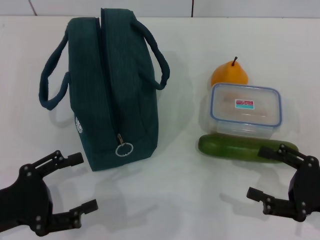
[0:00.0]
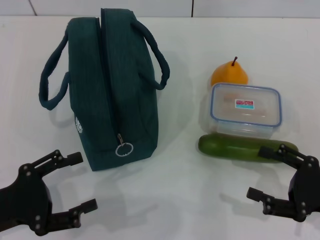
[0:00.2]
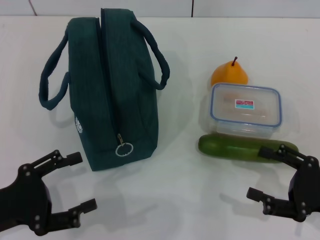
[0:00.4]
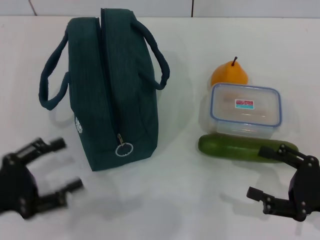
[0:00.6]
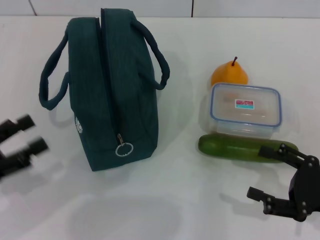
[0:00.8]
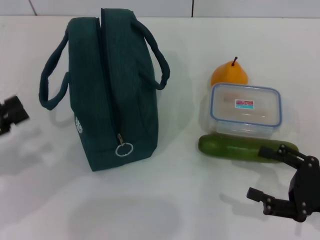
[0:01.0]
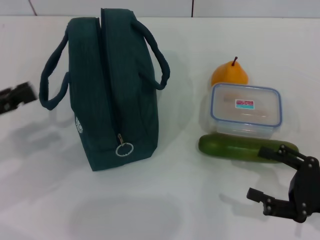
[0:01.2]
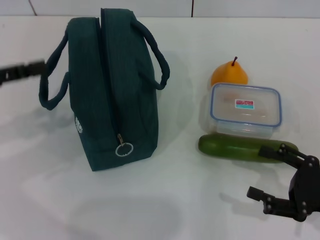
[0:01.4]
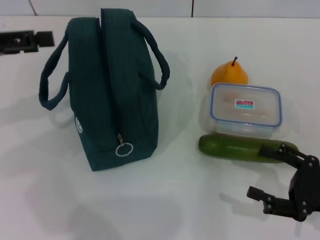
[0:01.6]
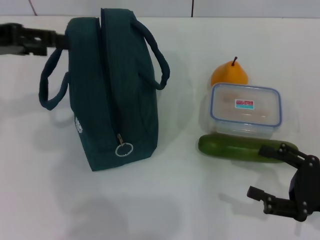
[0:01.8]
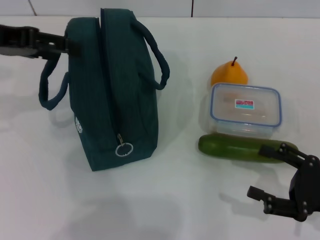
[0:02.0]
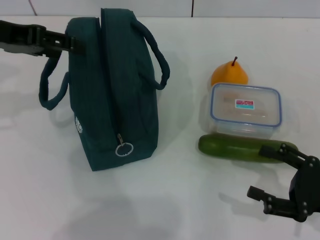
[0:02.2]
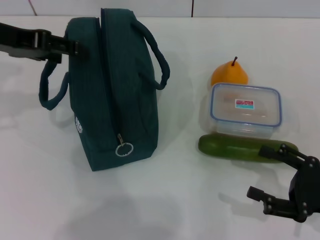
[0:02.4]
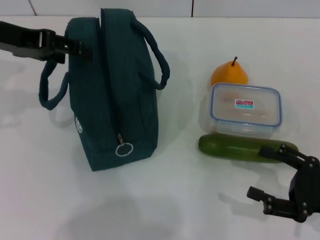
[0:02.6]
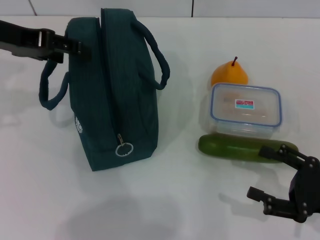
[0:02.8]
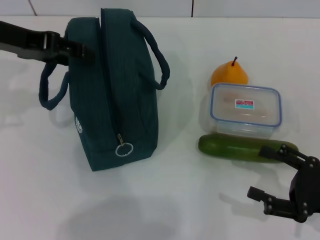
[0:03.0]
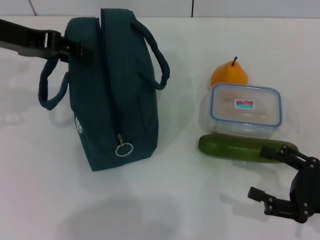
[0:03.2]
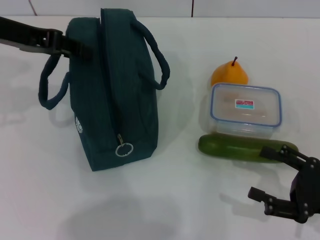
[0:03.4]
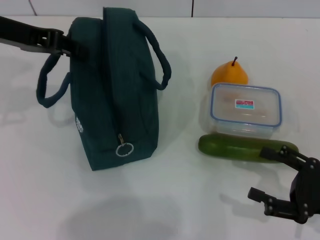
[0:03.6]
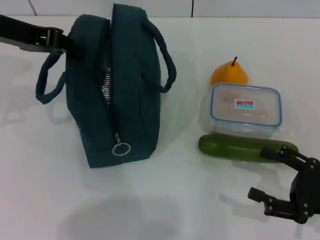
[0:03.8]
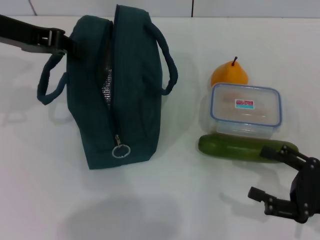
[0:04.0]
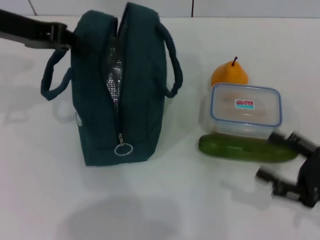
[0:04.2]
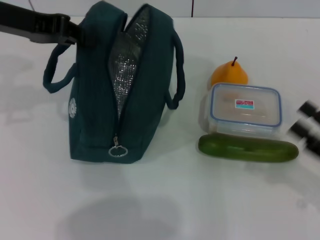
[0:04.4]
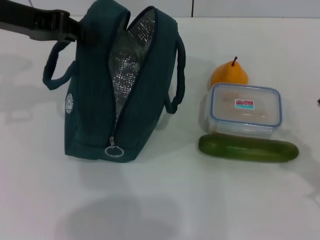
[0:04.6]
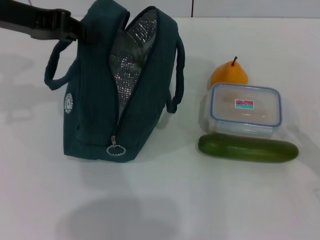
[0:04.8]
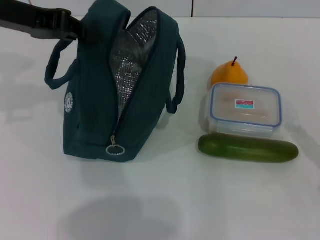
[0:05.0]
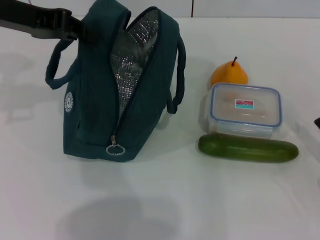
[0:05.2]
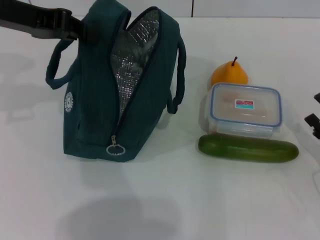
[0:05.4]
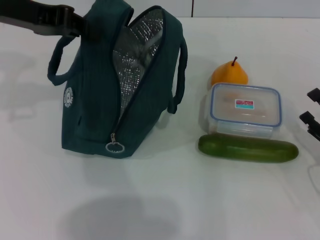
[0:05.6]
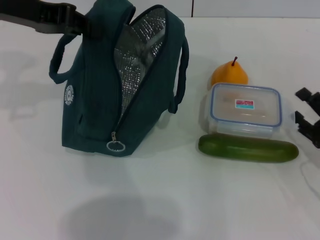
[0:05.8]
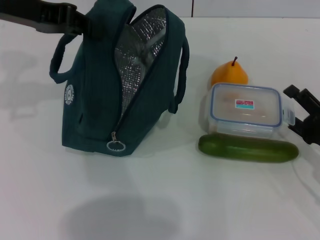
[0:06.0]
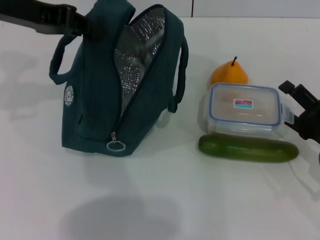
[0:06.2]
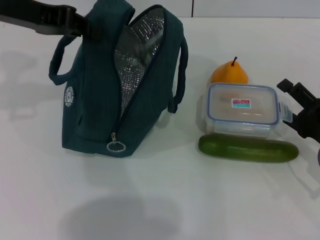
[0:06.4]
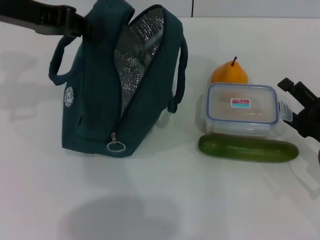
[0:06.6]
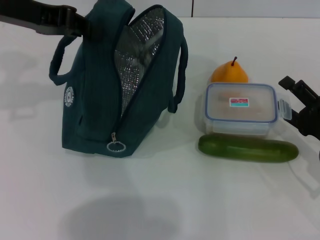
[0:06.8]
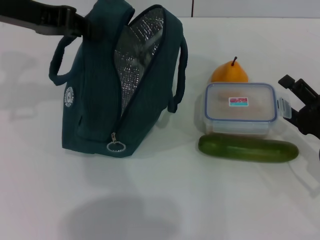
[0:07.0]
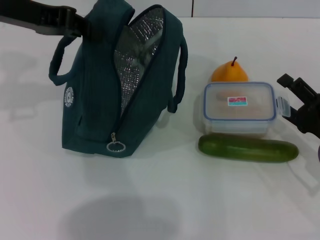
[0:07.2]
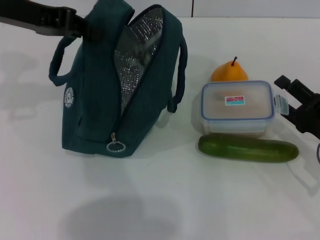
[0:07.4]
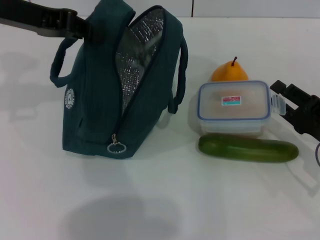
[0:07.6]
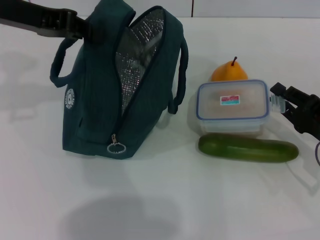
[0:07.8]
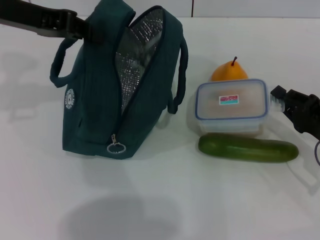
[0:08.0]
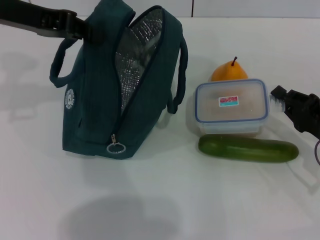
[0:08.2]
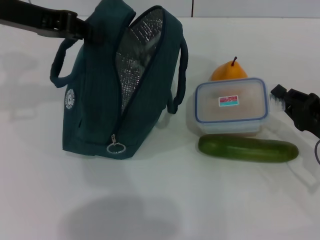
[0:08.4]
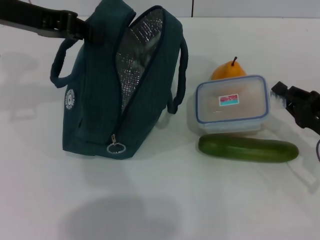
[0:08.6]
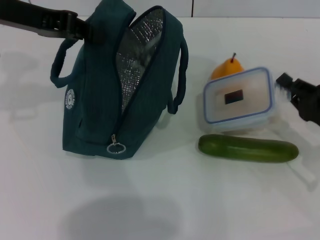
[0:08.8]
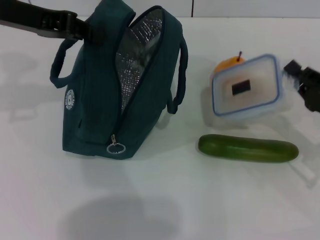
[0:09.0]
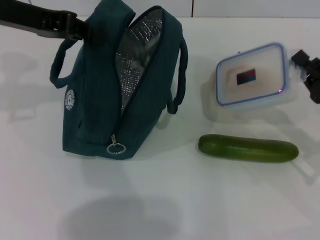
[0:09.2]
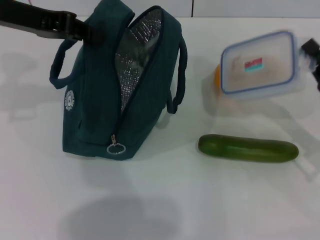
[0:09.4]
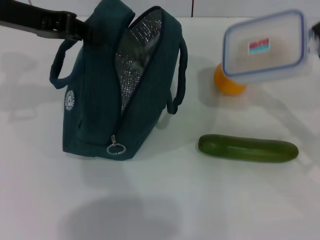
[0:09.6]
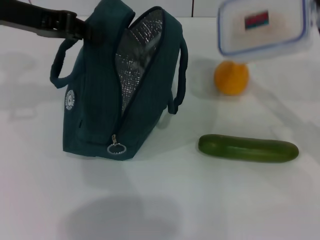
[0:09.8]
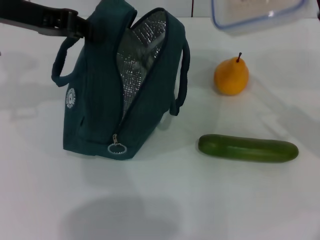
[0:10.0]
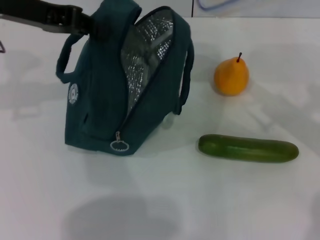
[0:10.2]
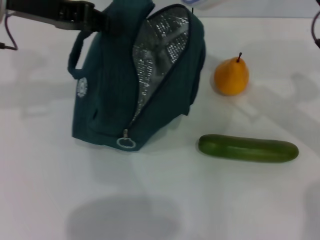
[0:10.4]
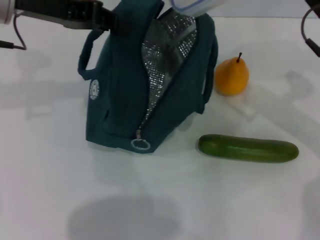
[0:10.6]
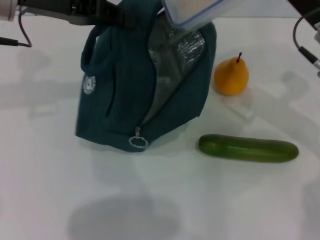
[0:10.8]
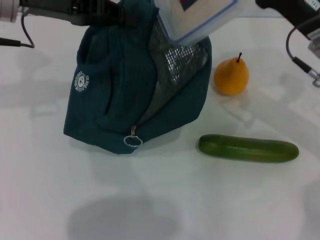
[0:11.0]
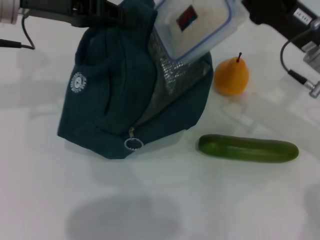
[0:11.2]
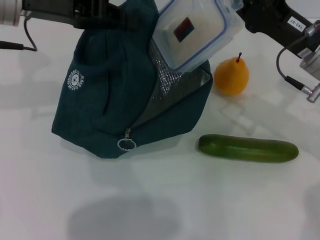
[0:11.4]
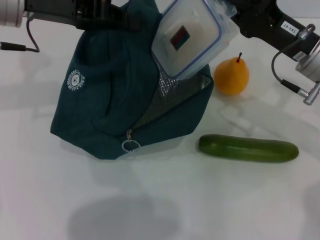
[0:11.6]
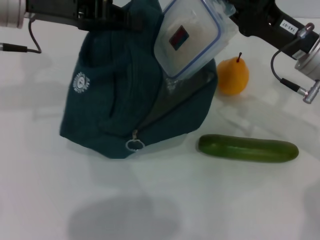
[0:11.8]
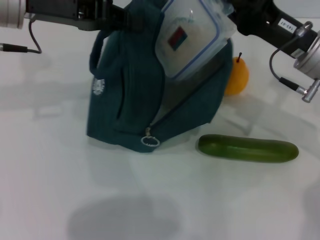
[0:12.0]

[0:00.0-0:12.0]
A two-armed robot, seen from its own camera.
Step, 0:00.0 to 0:05.0: Hold the lunch bag with your left hand.
Step, 0:05.2 to 0:08.4: Pick up the lunch box with your right hand.
0:00.0 to 0:01.6: The left gripper travels upward and forward by some 20 cm.
0:01.6 to 0:03.0: The left gripper travels forward and to the right by roughly 10 cm.
0:03.0 to 0:04.4: The left gripper closes.
0:04.4 to 0:06.0: The right gripper is displaced forward by some 5 cm.
0:06.0 to 0:07.6: There are only small adjustments of the grippers.
0:07.6 to 0:09.0: The right gripper closes up.
0:09.0 to 0:10.4: The right gripper shifts some 15 cm upward, forward and to the left.

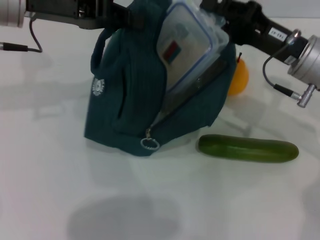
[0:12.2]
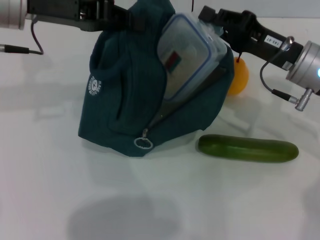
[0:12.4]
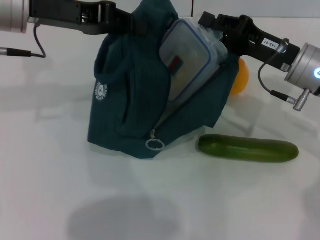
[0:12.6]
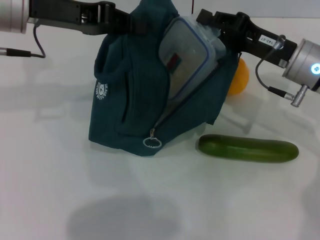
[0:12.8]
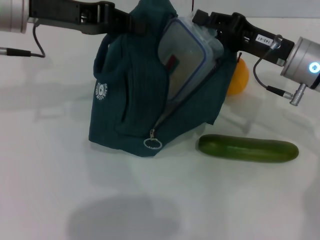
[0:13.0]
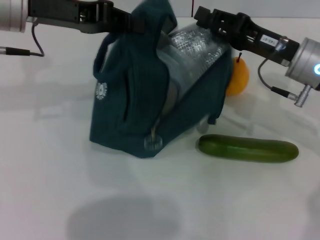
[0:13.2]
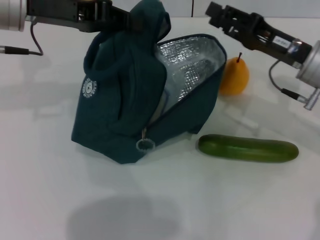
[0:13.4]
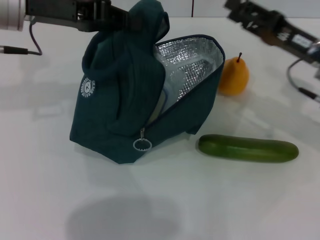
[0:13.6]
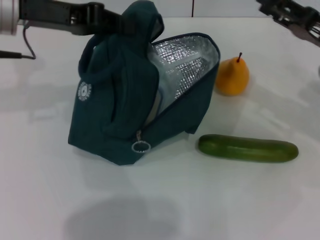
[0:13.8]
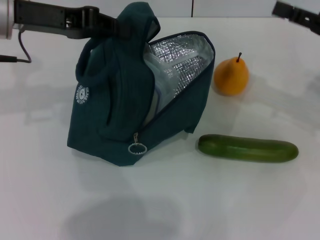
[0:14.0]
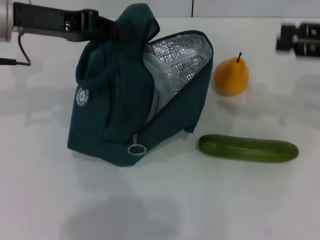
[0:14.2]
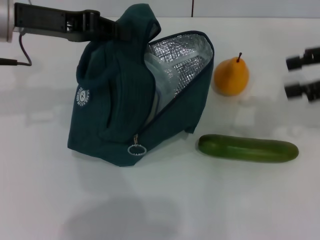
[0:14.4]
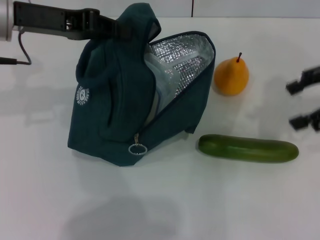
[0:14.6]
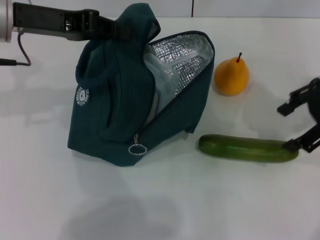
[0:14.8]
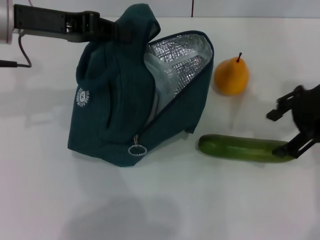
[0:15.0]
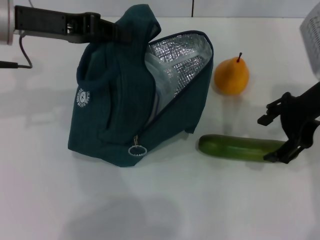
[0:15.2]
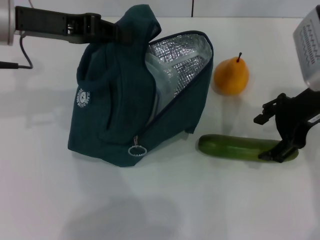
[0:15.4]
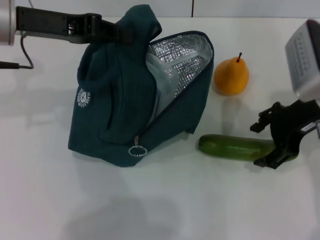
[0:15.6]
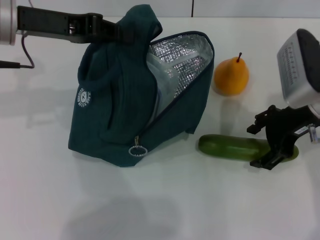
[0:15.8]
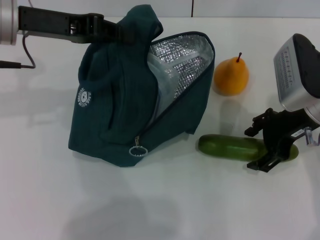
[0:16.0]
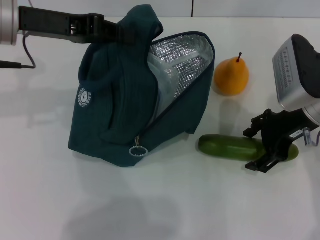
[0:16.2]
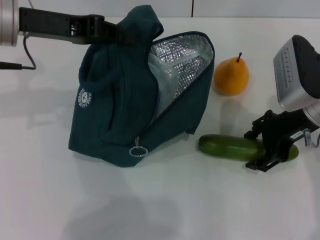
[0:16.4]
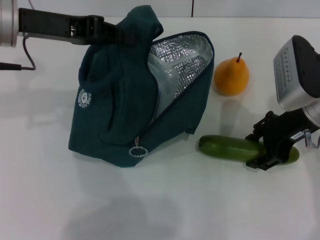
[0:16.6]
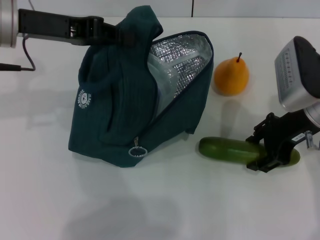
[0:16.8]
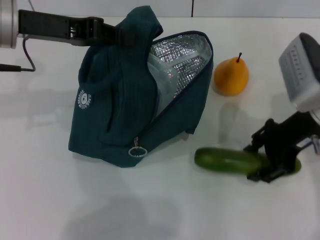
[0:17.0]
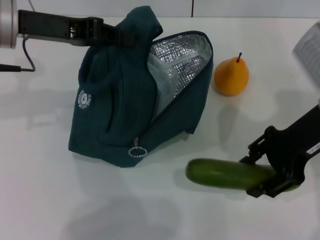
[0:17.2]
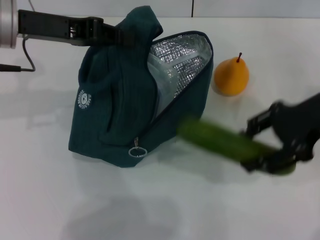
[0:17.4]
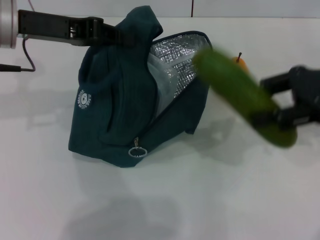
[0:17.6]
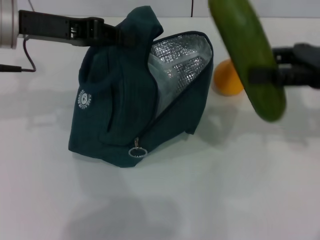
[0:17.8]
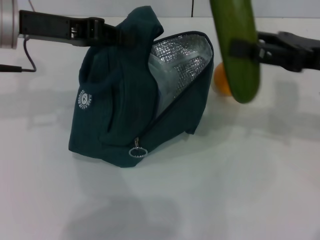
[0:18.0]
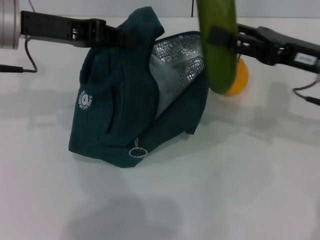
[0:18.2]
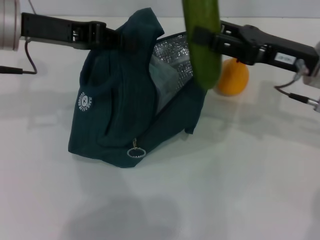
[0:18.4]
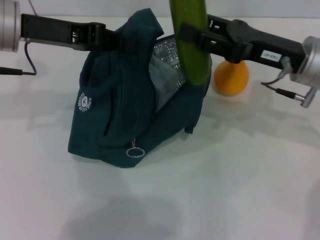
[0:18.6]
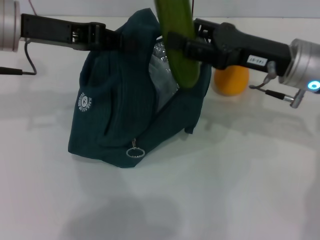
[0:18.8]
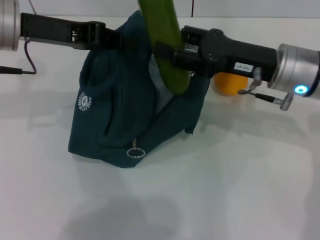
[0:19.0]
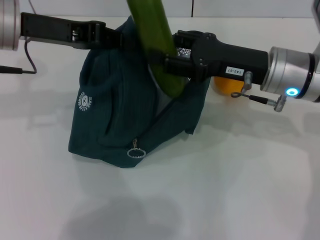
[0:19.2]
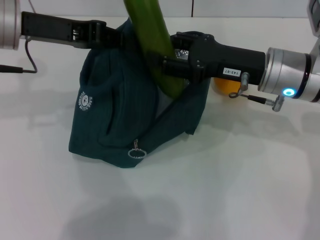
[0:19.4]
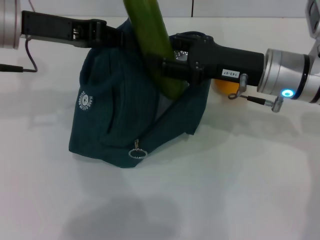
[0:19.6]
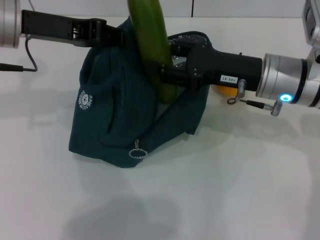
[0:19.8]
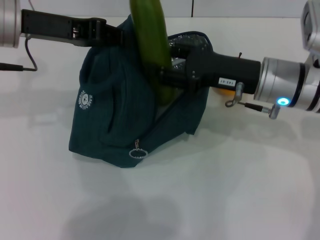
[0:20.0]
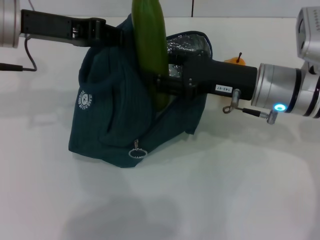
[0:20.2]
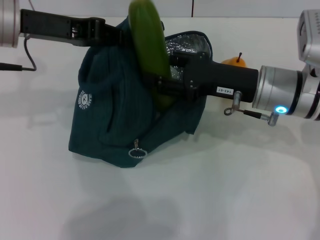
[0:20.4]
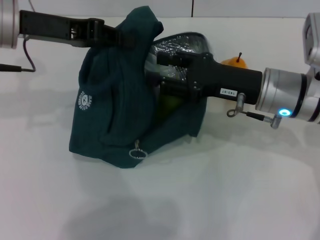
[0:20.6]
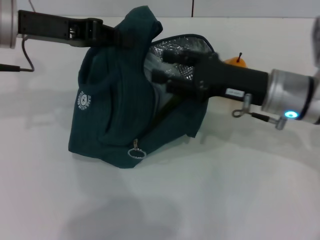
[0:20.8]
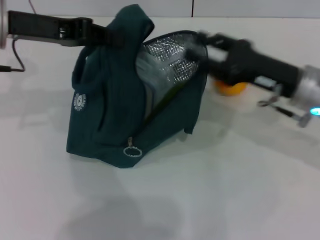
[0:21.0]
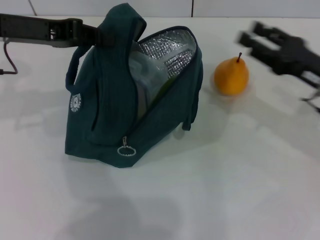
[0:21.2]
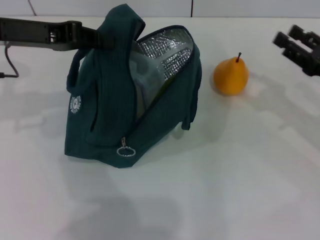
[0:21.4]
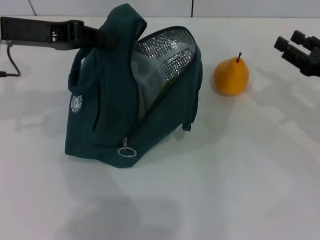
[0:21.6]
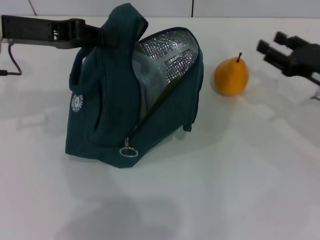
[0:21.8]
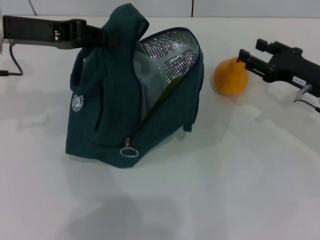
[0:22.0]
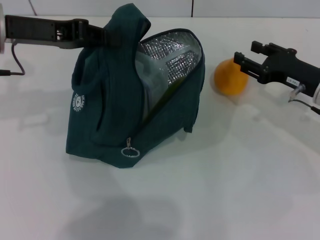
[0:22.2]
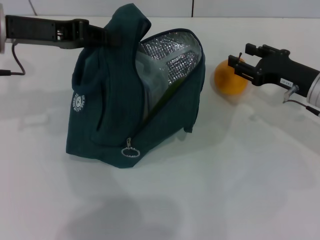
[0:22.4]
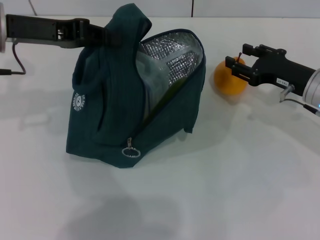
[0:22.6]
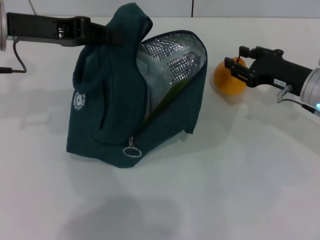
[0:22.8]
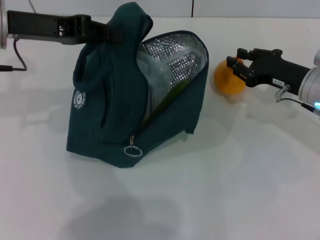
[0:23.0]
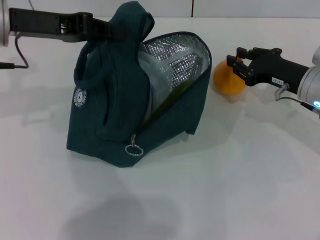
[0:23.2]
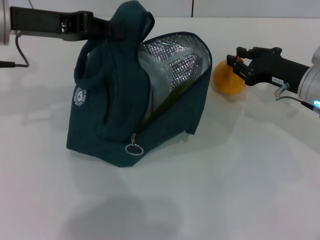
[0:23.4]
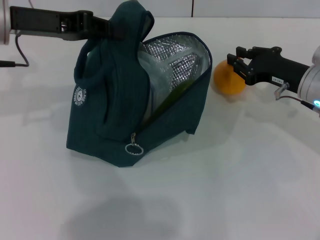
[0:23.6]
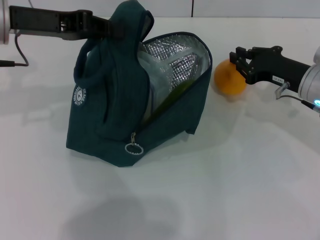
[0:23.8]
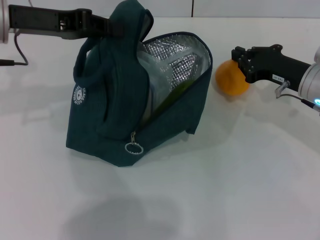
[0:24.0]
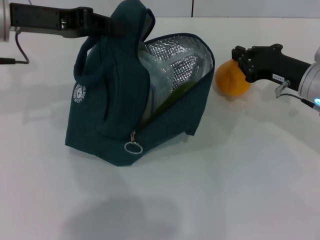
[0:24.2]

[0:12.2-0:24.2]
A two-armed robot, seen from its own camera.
Step, 0:13.4 to 0:16.4: Pick up the cucumber with your right hand.
Step, 0:16.6 to 0:20.8: Put the cucumber into the lunch bag with your right hand.
Step, 0:21.0 to 0:24.0: Grab the pear with your right hand.
0:12.2 to 0:13.8: The right gripper moves to the right, roughly 10 cm, and opens its fingers.
0:13.8 to 0:15.2: The right gripper is displaced to the left and upward by roughly 10 cm.
0:15.2 to 0:16.6: The right gripper moves downward, some 5 cm.
0:18.2 to 0:19.8: The right gripper goes about 5 cm to the left.
0:19.8 to 0:21.2: The right gripper travels to the right by roughly 10 cm.
0:21.2 to 0:22.6: The right gripper moves approximately 5 cm.
0:22.6 to 0:24.2: The right gripper closes its fingers.
